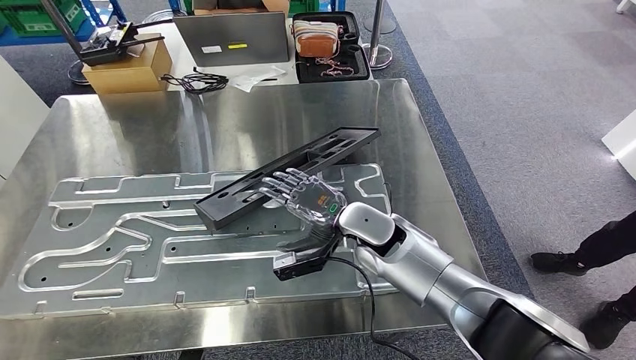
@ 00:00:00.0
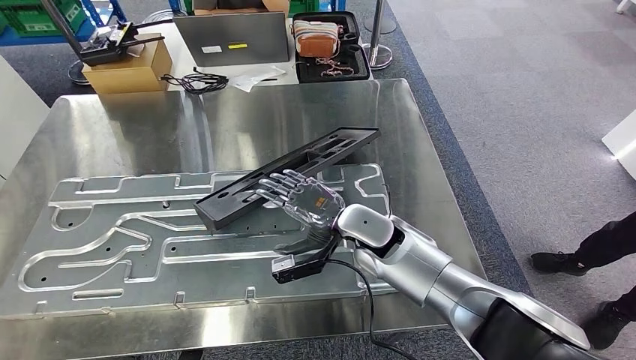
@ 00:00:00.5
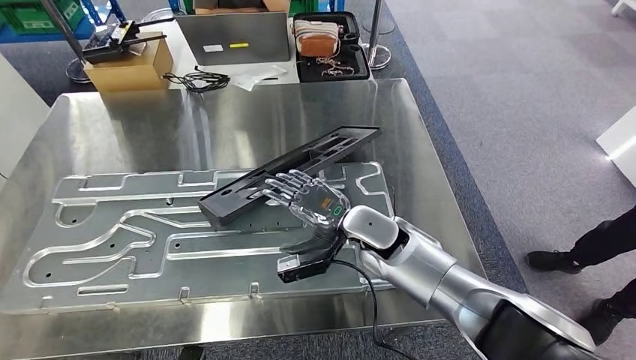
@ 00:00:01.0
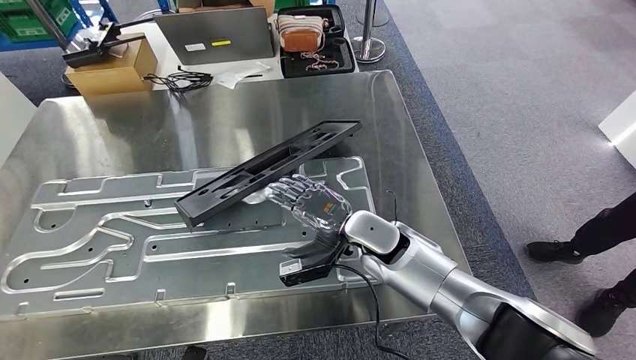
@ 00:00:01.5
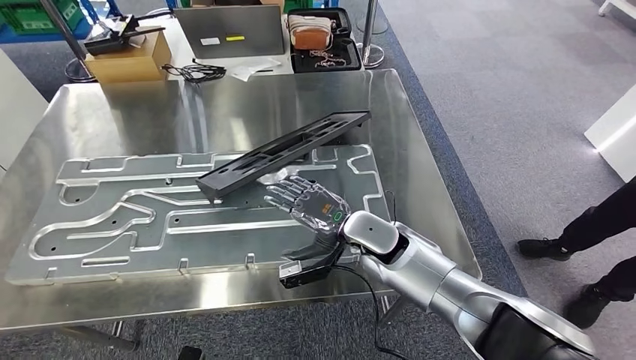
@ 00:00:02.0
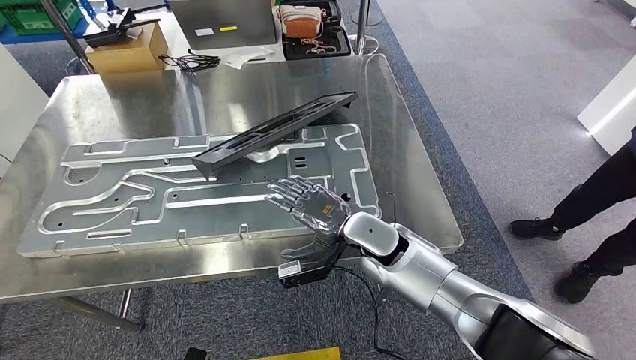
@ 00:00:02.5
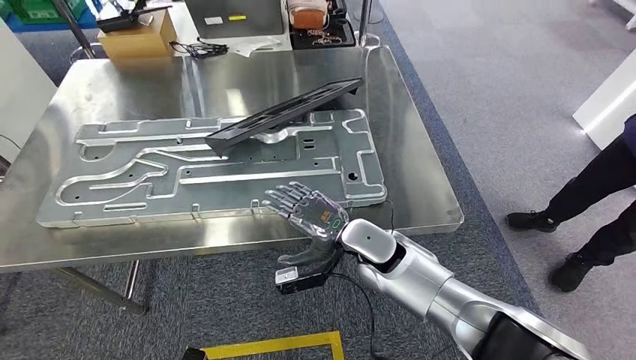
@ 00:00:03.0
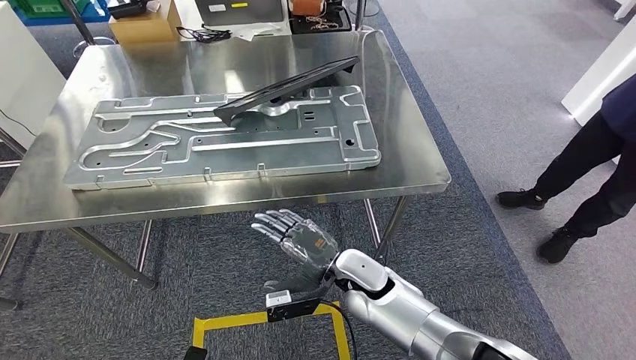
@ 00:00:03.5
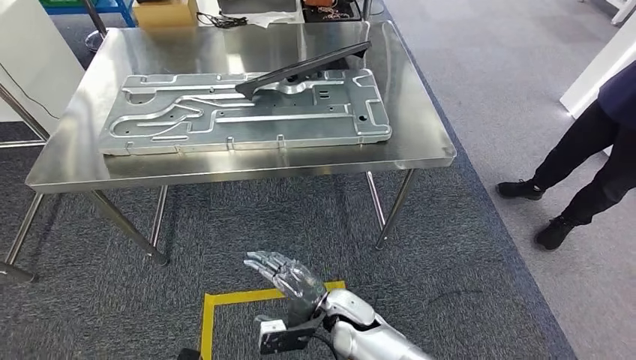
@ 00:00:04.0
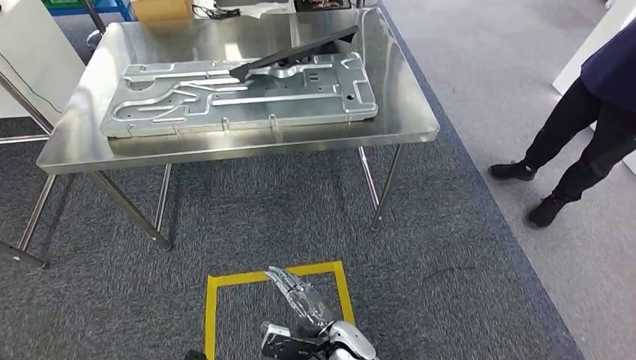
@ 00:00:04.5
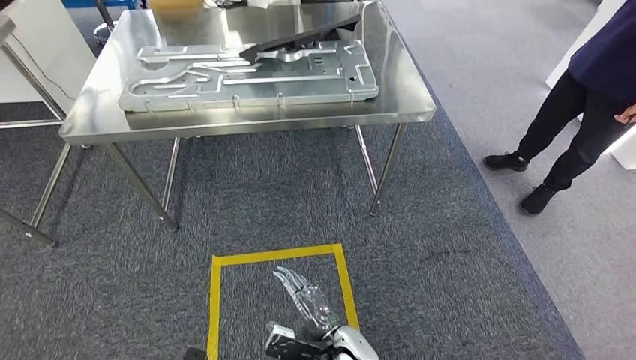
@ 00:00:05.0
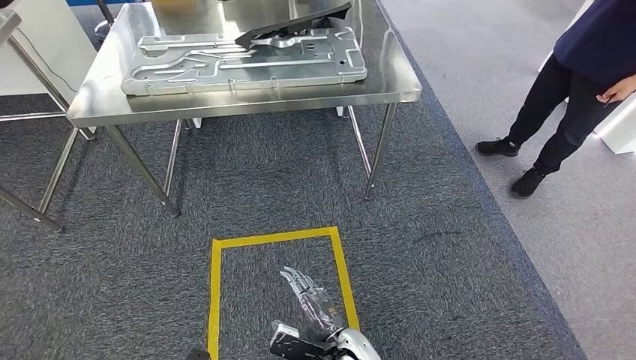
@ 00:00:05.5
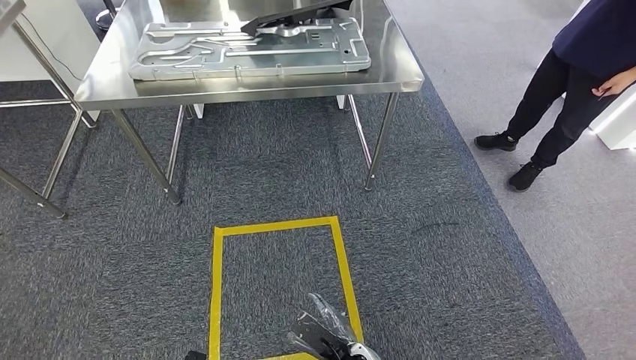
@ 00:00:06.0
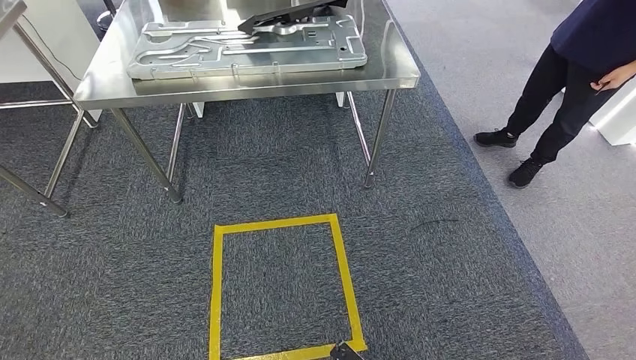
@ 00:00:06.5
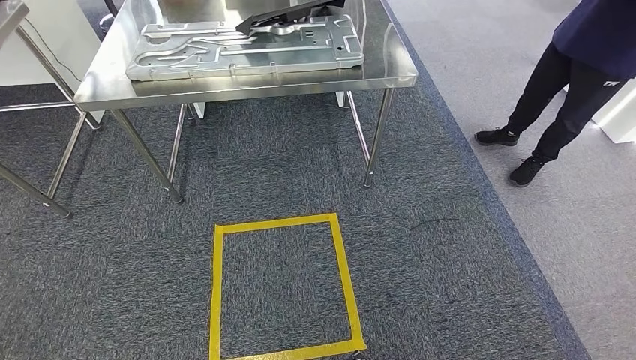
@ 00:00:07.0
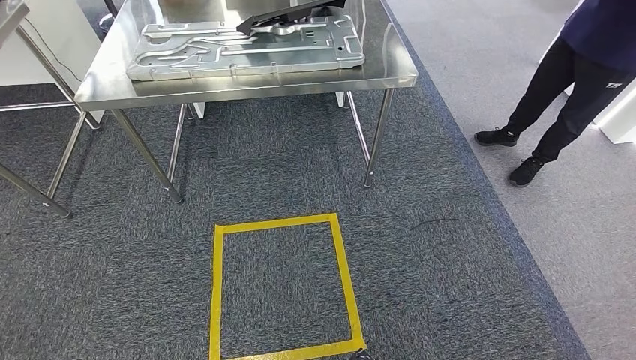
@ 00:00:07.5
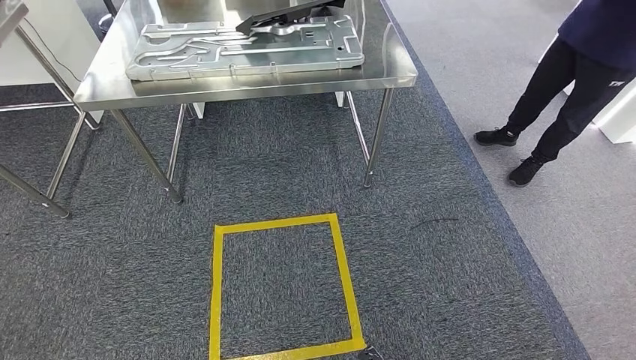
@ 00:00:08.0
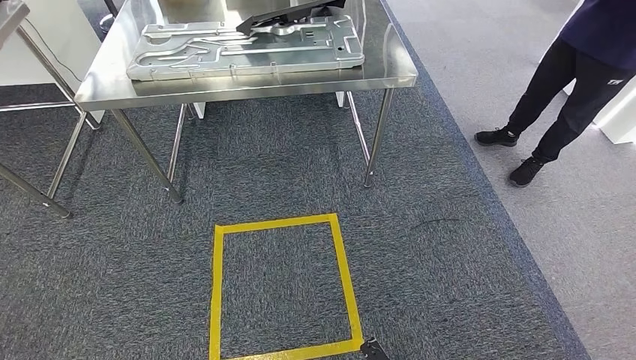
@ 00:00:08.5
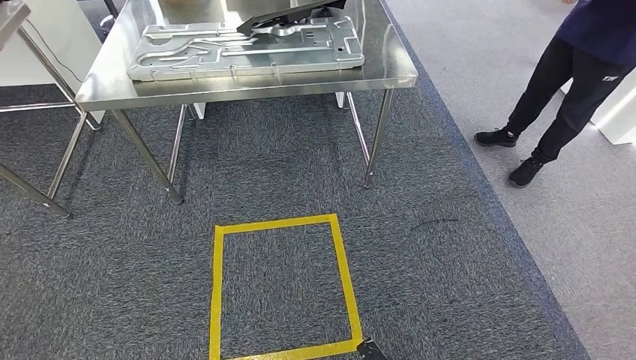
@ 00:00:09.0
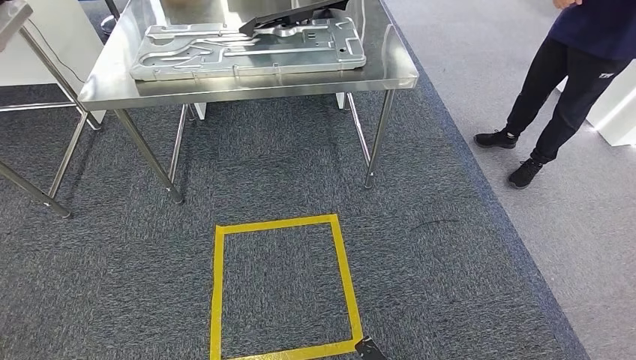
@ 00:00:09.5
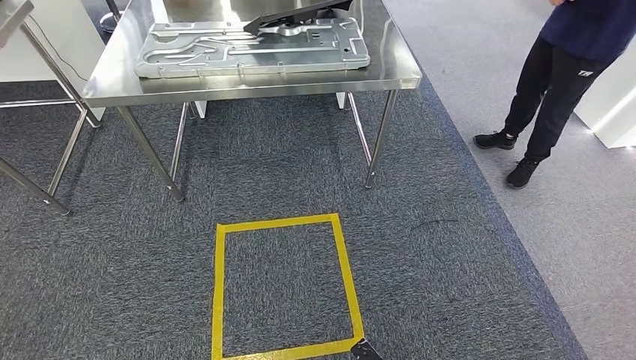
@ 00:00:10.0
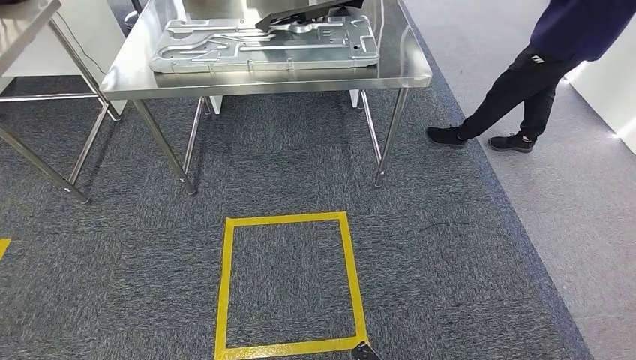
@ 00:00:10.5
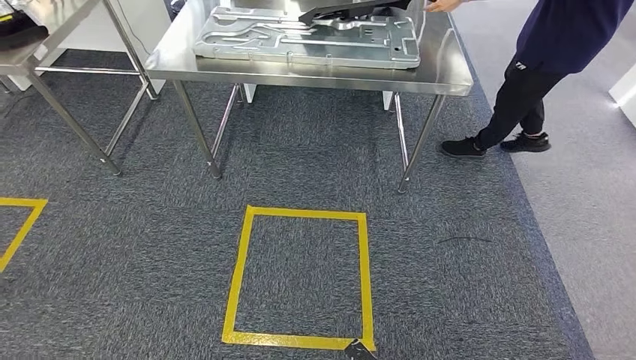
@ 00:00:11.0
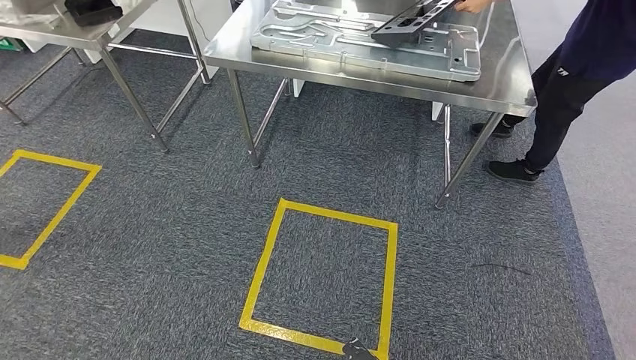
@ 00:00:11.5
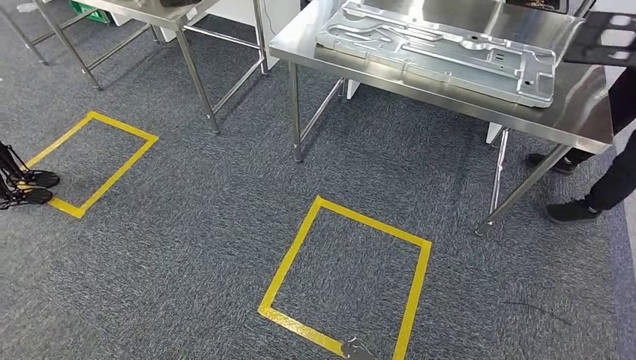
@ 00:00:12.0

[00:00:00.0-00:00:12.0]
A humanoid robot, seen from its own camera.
00:00:06.0 to 00:00:08.0: The right hand moves to the right, backward and downward, approximately 15 cm.
00:00:08.0 to 00:00:10.0: There are only small adjustments of the hands.

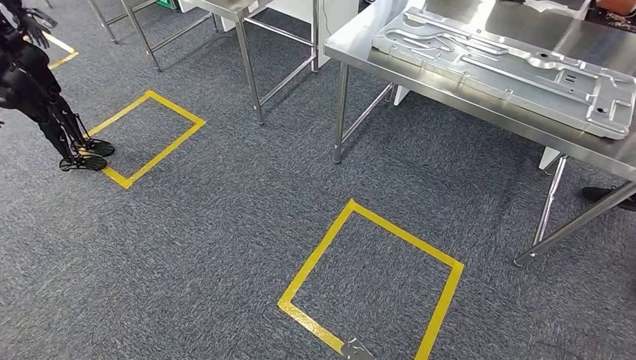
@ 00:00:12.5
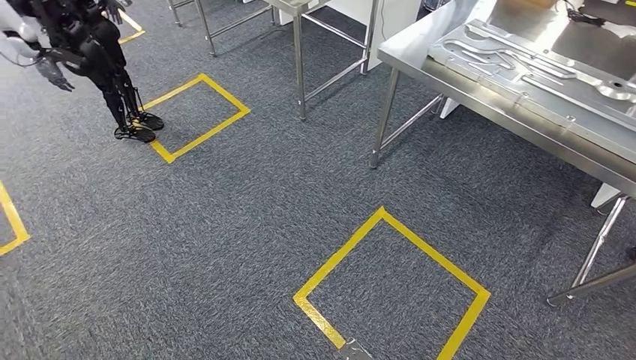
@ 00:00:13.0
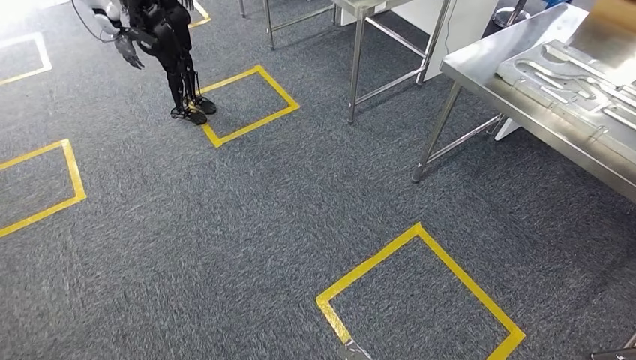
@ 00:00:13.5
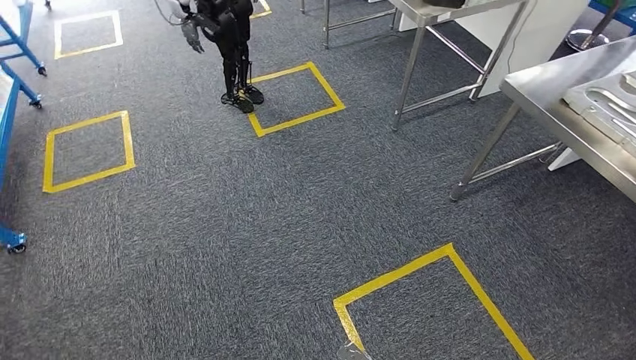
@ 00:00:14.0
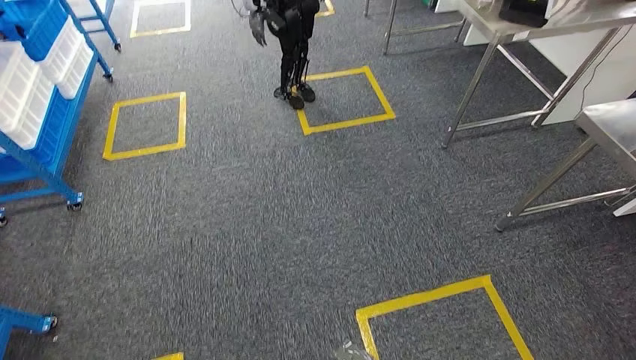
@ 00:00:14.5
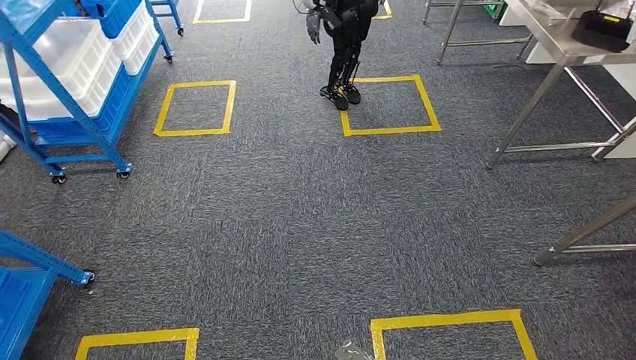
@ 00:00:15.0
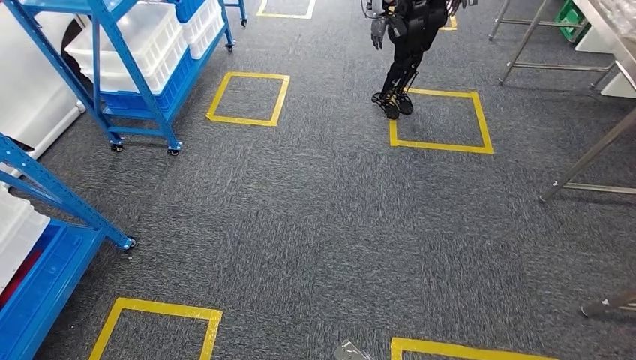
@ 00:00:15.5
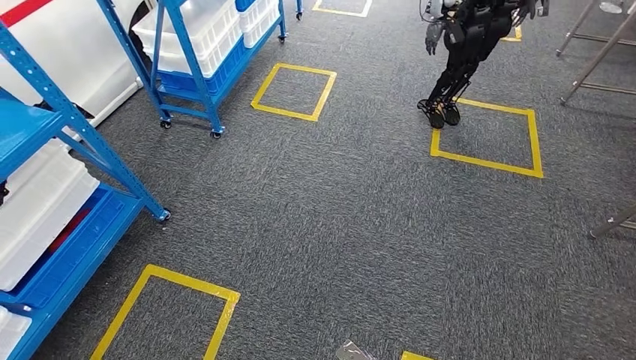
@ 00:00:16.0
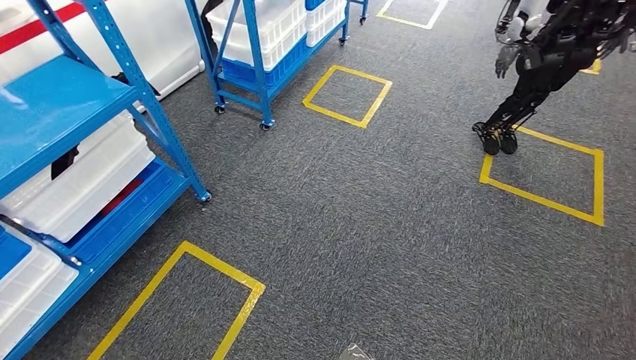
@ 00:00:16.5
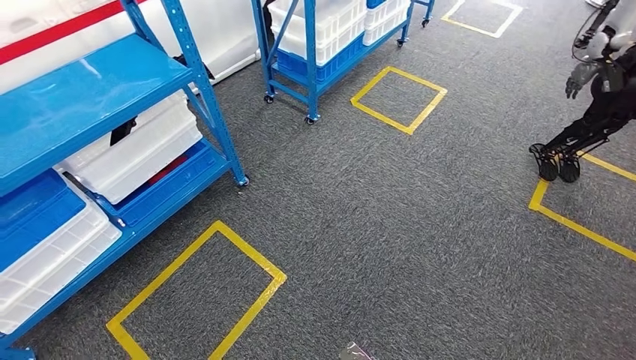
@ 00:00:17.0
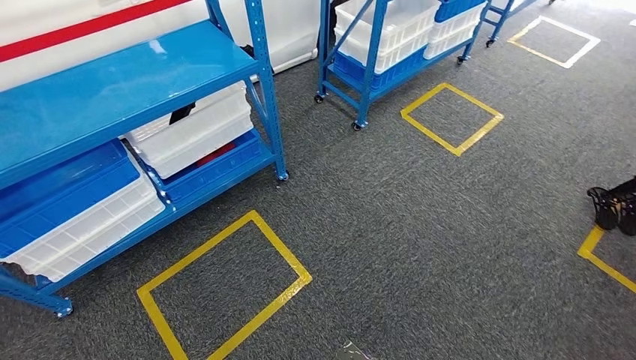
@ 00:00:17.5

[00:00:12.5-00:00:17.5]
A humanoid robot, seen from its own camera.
Step, 00:00:12.5 to 00:00:17.5: Move to the initial position of the shelf.
